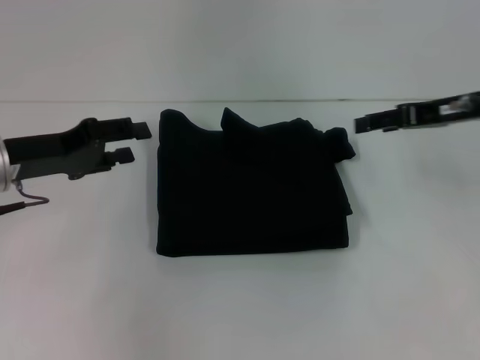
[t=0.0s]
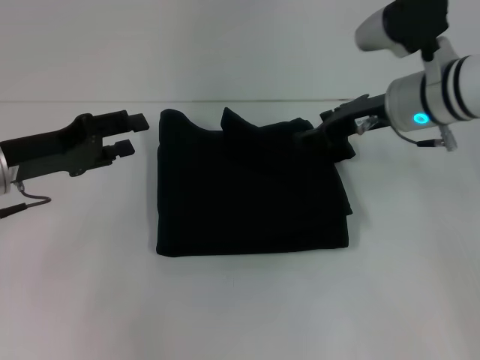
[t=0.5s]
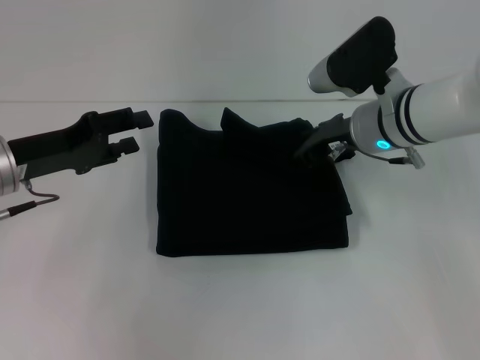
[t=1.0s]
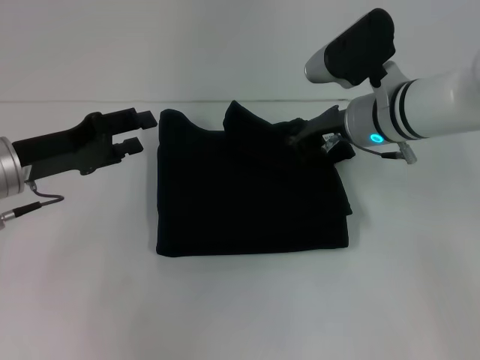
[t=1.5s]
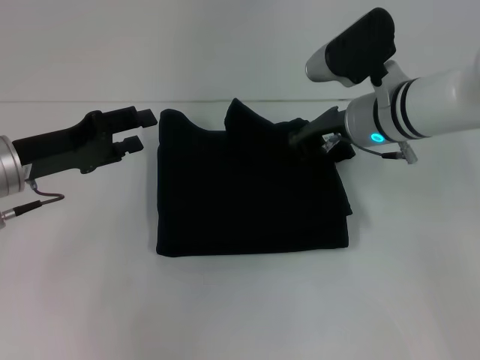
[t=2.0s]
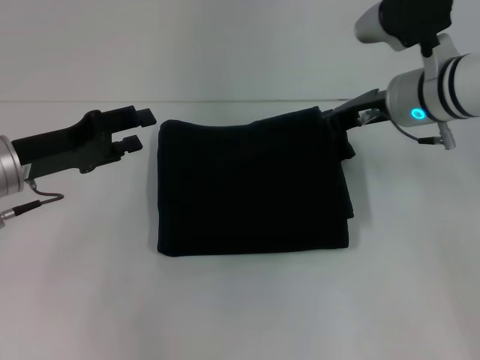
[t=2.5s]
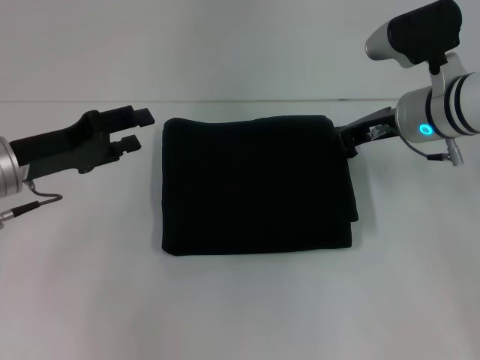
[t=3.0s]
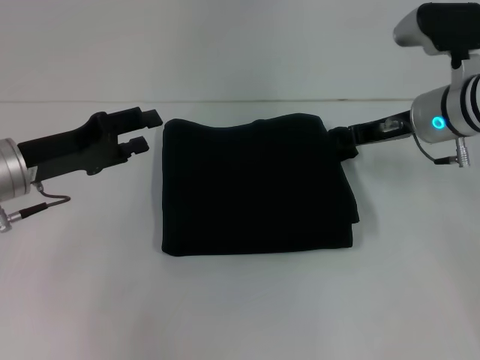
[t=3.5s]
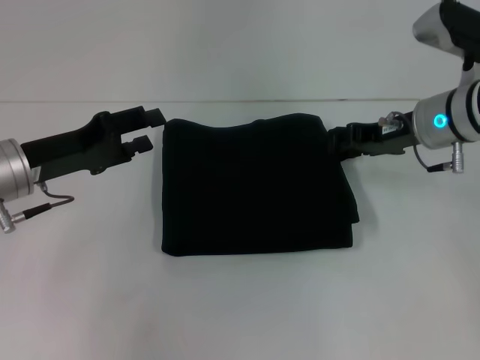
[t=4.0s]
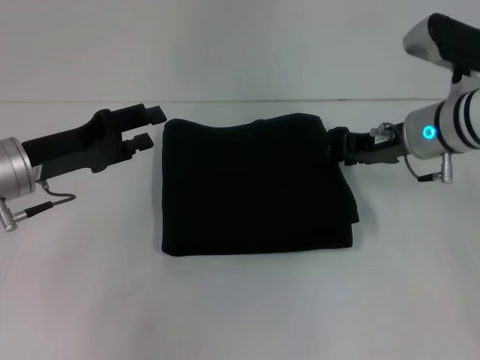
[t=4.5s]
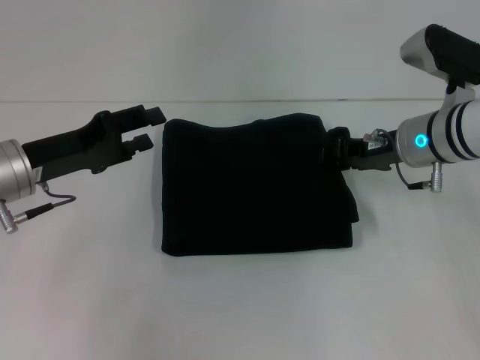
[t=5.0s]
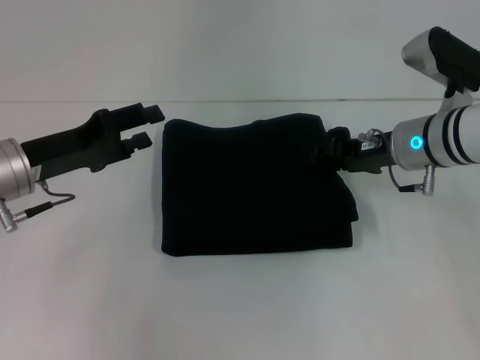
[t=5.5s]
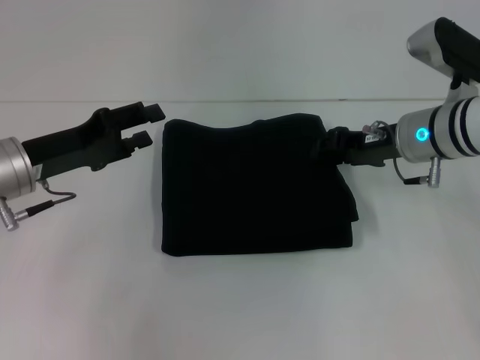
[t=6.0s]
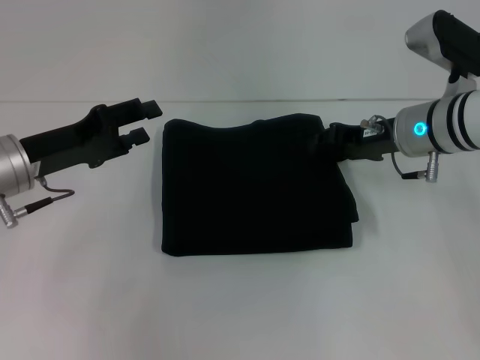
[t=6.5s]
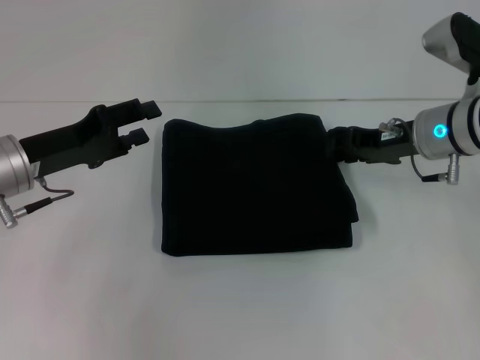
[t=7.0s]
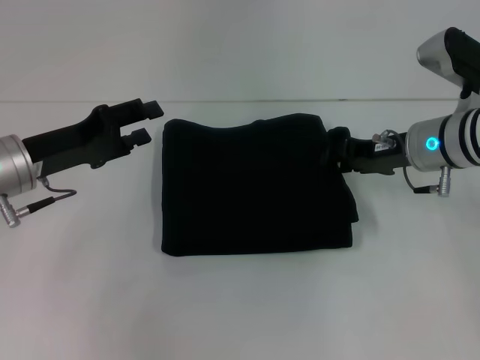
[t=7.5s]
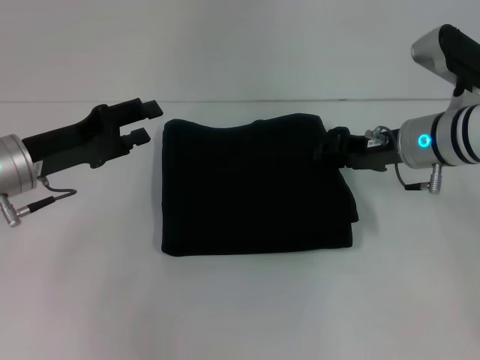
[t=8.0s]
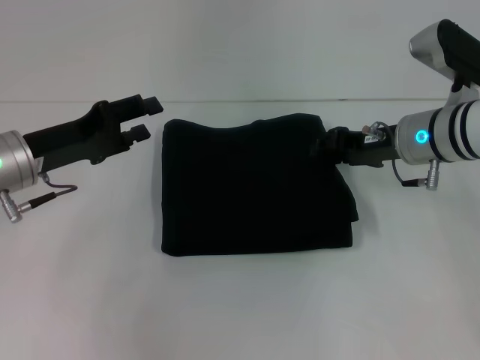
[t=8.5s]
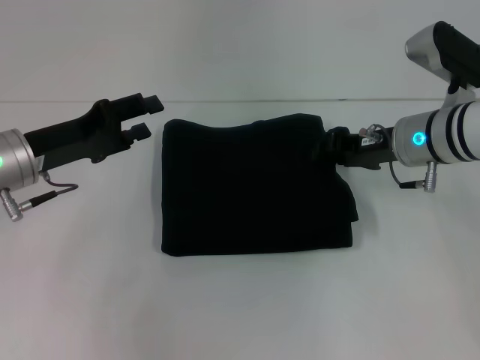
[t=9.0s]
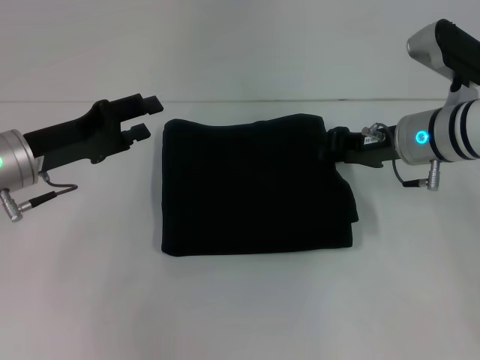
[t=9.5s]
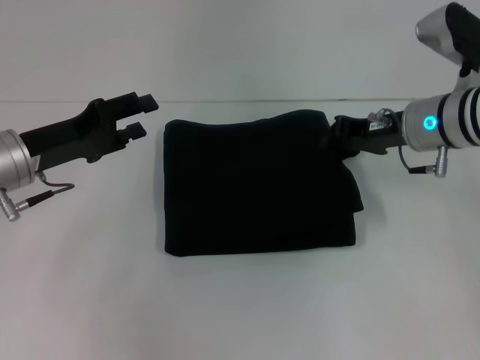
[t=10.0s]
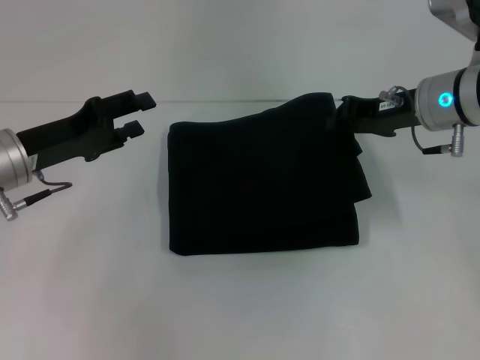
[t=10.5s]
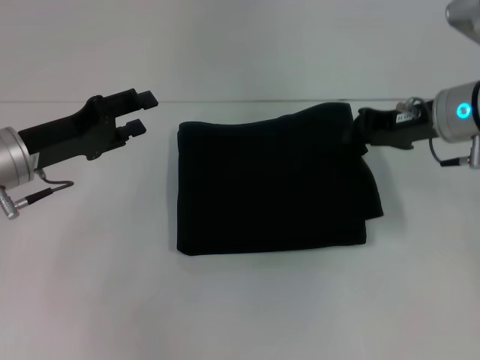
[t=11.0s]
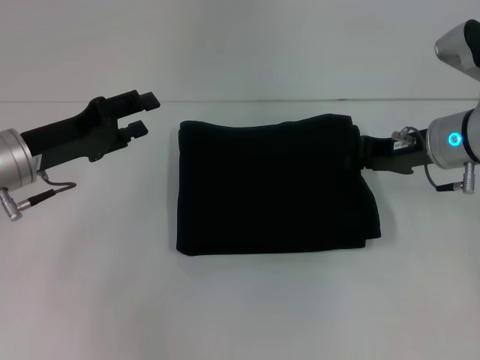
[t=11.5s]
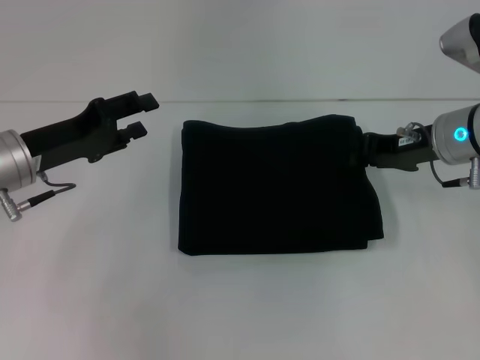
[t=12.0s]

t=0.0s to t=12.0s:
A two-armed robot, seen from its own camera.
t=0.0s to t=2.0s: The right gripper shifts about 15 cm to the left, and closes.
t=2.0s to t=4.0s: The right gripper goes about 5 cm to the right, and opens.
t=4.0s to t=8.0s: The grippers stay close to where they were, moving slightly.
t=8.0s to t=10.0s: The right gripper closes its fingers.
t=10.0s to t=12.0s: The grippers make only small movements.

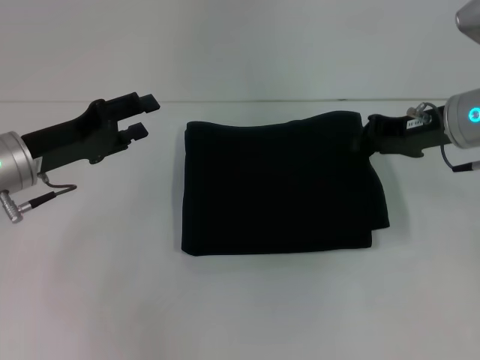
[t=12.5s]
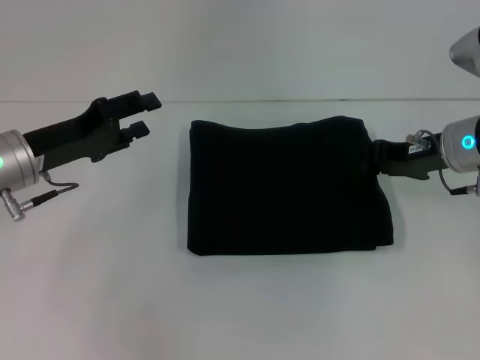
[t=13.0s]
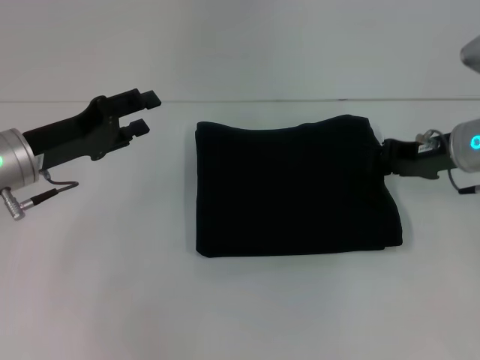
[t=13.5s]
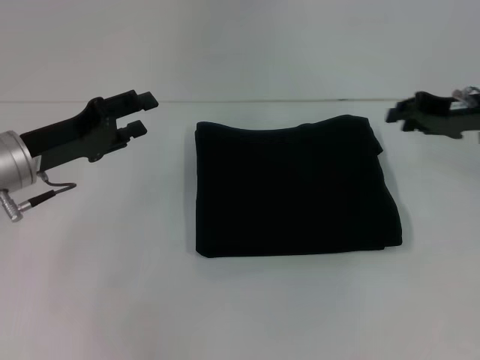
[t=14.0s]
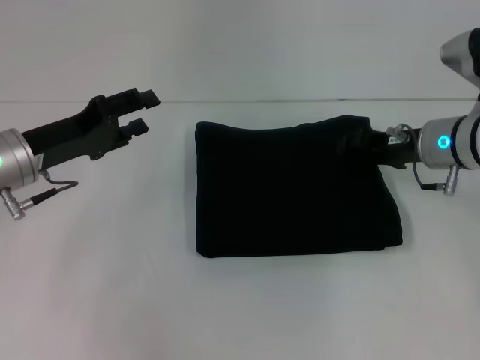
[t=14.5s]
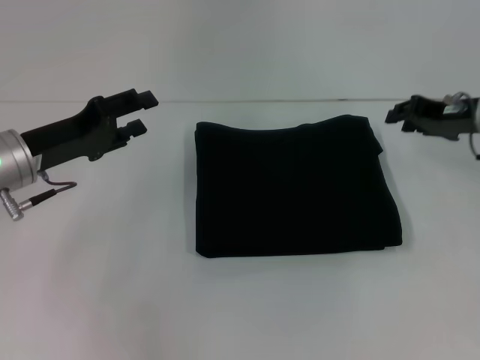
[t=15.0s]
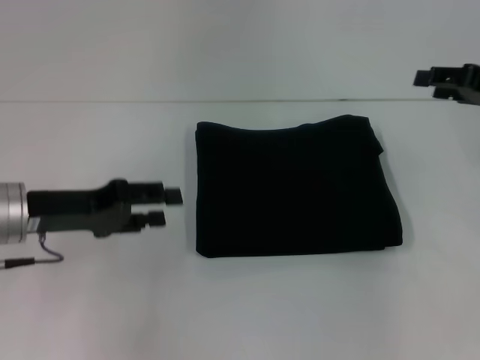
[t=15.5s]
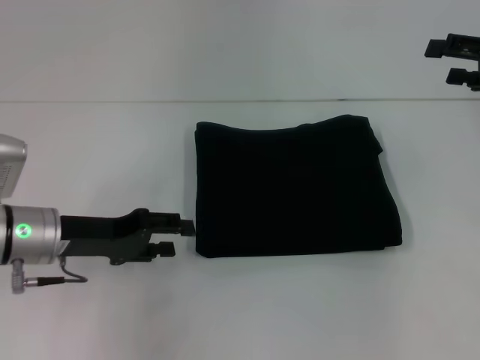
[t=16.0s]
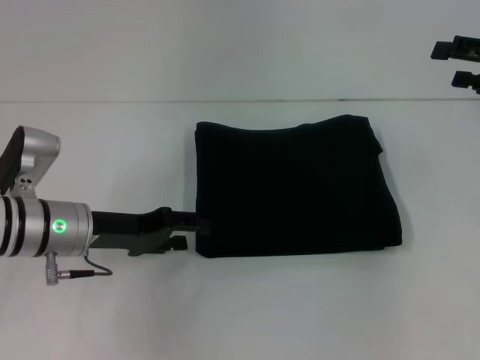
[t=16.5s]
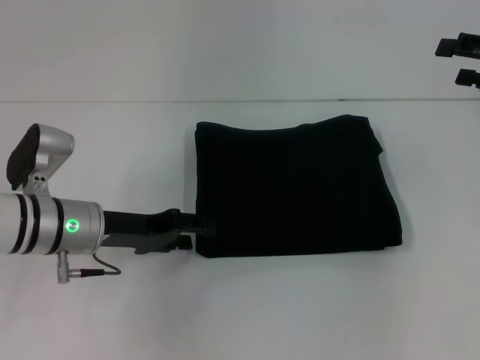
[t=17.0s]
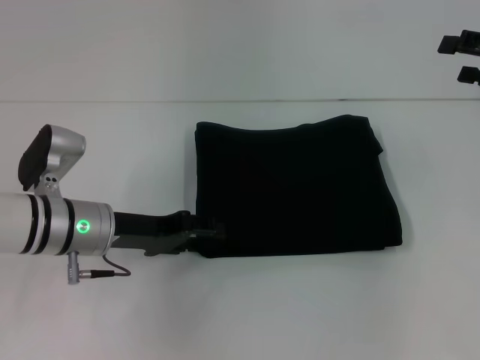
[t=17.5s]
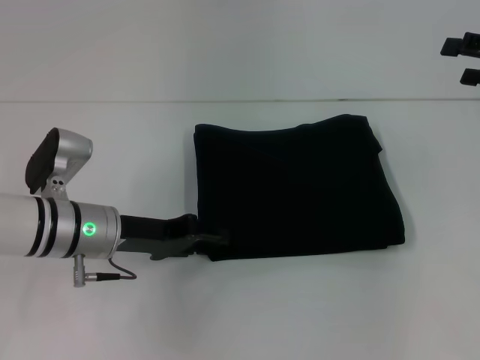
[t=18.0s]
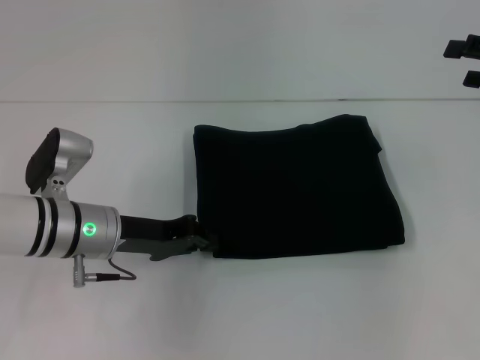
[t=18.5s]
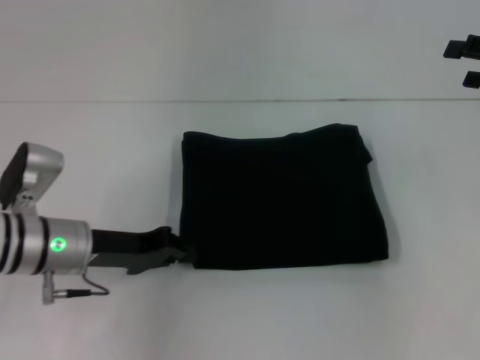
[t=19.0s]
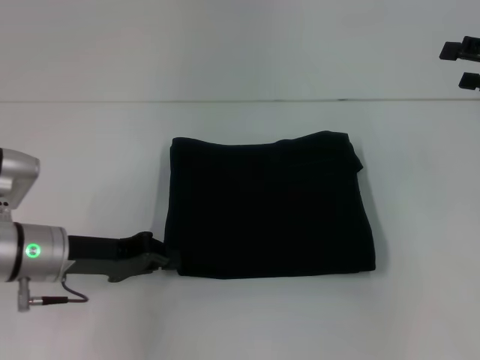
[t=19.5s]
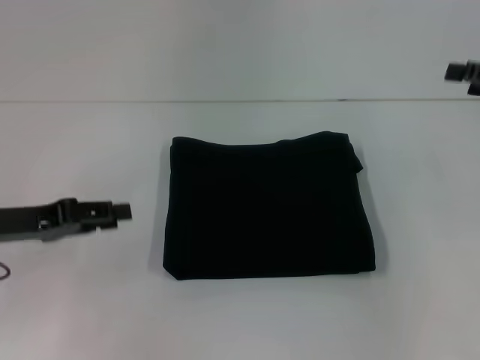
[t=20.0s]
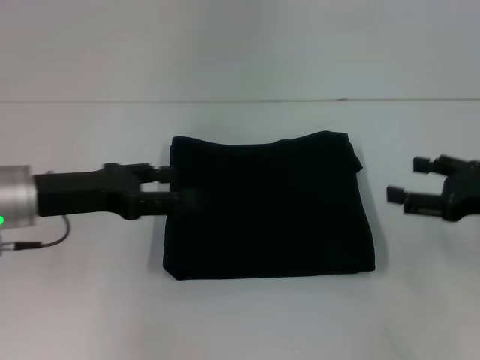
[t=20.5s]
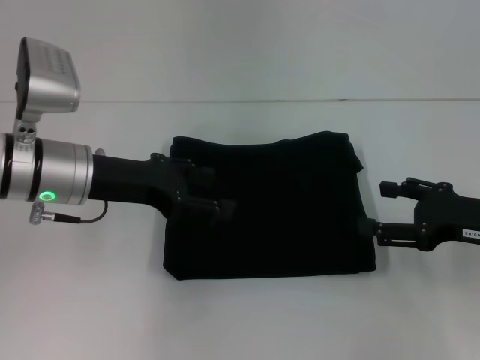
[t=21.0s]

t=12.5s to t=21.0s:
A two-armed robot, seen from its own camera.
t=12.5s to t=14.5s: The right gripper heads downward, covering some 5 cm, and opens.
t=14.5s to t=16.5s: The left gripper shifts by roughly 5 cm. Meanwhile the right gripper shifts approximately 15 cm to the right and upward, and opens.
t=16.5s to t=19.0s: The left gripper closes.
t=19.0s to t=21.0s: The left gripper heads upward, covering some 10 cm, goes to the left and returns, roughly 10 cm each way, and opens up; the right gripper heads downward, backward and to the left, covering approximately 15 cm.

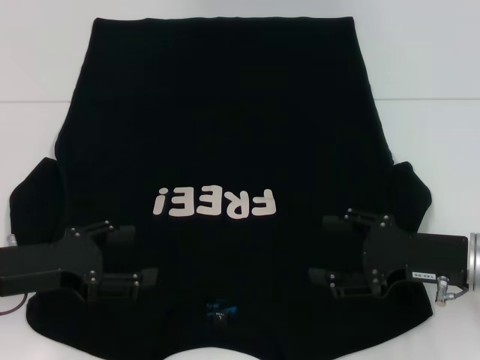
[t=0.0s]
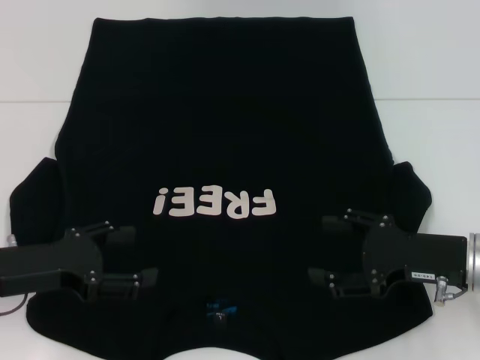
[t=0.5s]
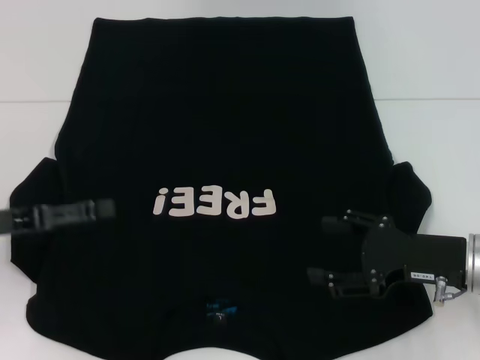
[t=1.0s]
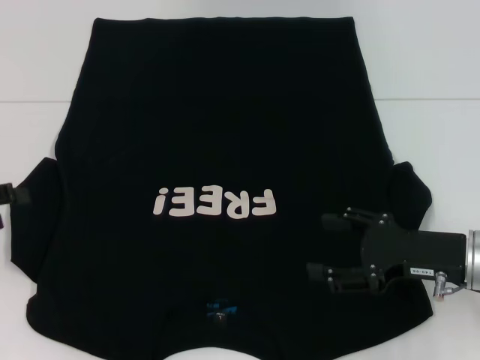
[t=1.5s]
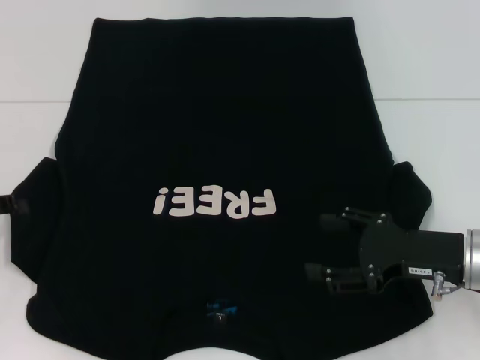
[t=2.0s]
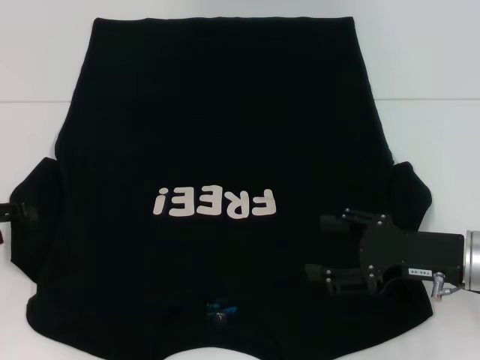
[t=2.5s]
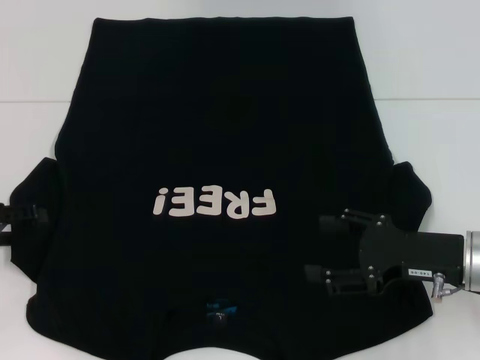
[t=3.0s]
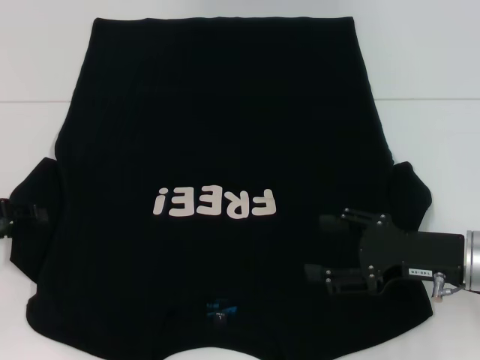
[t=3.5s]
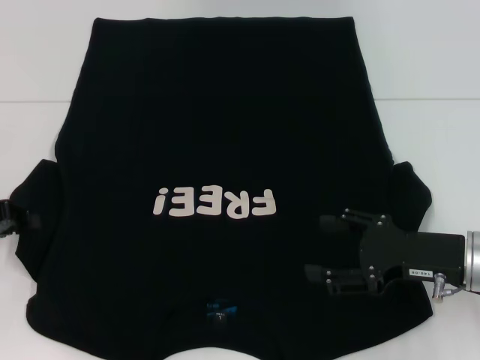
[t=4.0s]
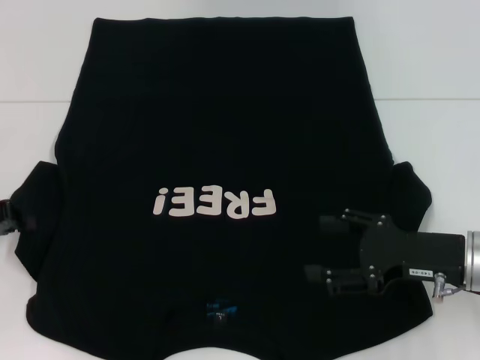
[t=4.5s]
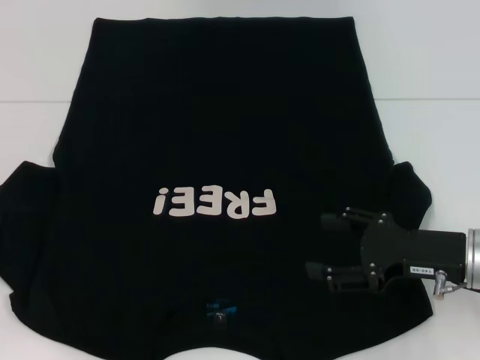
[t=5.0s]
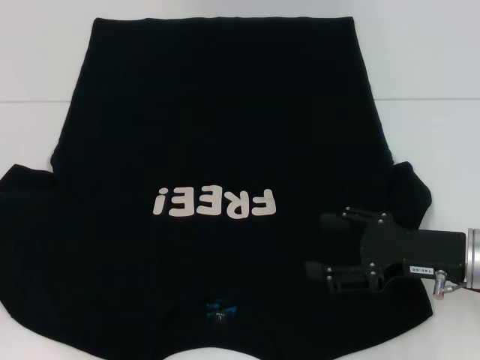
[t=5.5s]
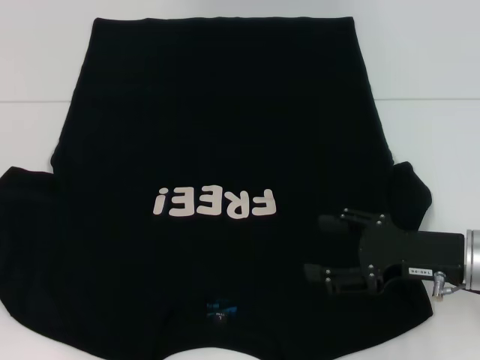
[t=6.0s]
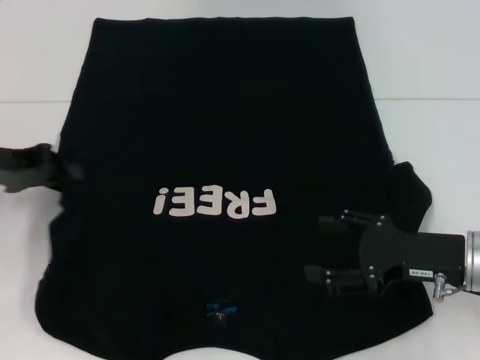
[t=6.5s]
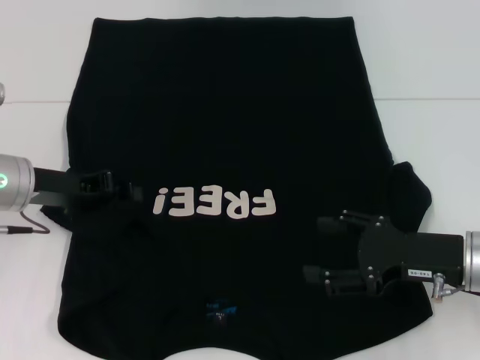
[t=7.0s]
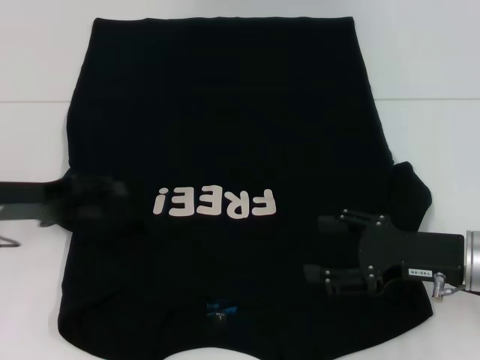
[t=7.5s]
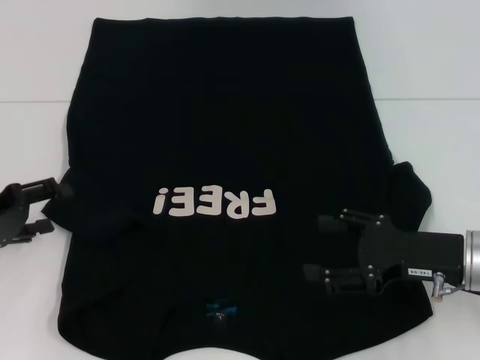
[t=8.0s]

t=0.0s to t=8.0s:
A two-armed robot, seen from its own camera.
t=0.0s to t=2.0s: The left gripper heads to the left, covering roughly 10 cm.
t=4.0s to t=6.0s: The left gripper moves approximately 5 cm.
t=6.0s to t=8.0s: The left gripper opens.
